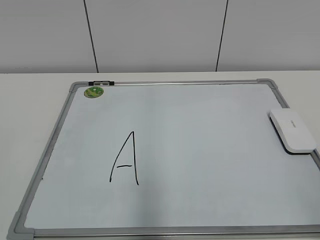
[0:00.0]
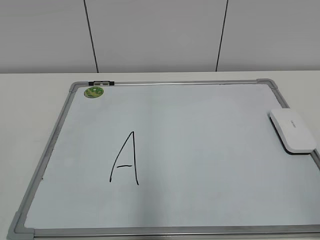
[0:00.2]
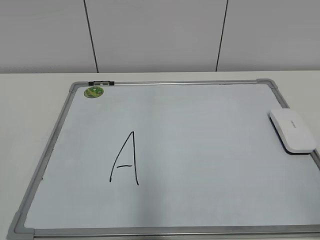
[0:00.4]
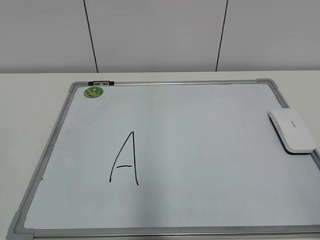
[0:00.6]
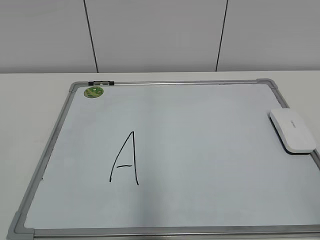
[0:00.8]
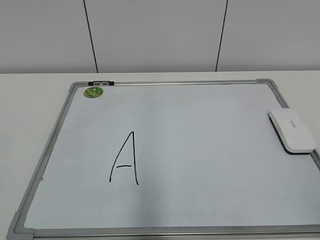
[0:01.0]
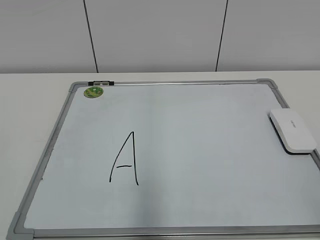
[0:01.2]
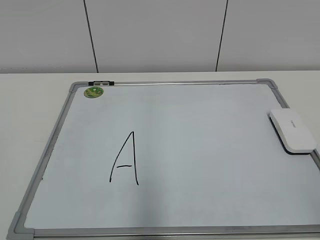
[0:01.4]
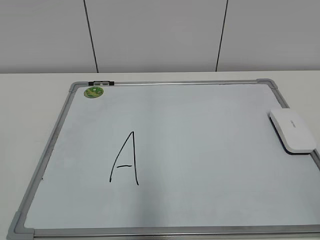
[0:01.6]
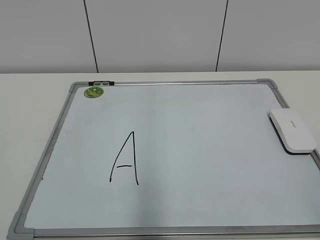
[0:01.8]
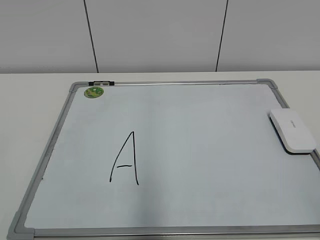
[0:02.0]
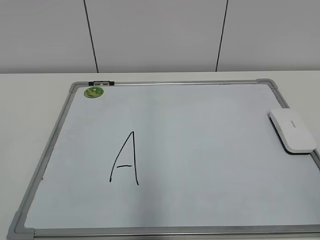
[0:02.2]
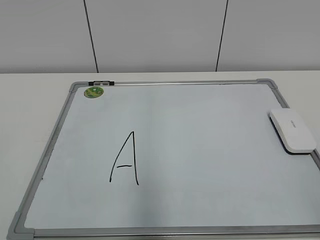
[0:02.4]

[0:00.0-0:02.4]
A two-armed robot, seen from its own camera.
Task of the whole recording: pick up the eraser on the blackboard and erase the letter "a".
0:01.2 to 0:02.4: Both grippers stay about where they are.
